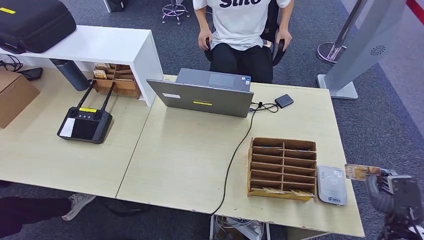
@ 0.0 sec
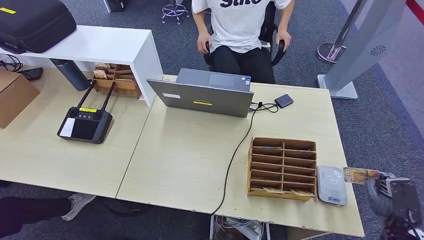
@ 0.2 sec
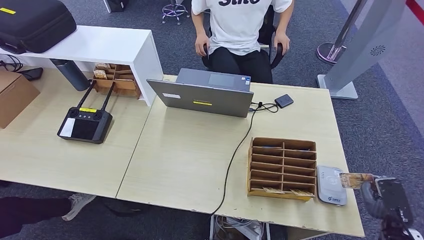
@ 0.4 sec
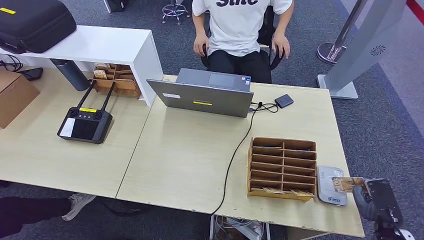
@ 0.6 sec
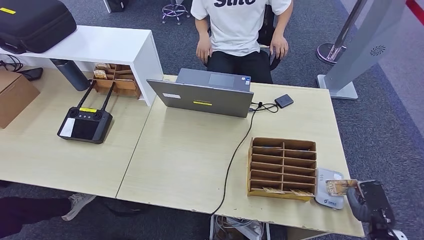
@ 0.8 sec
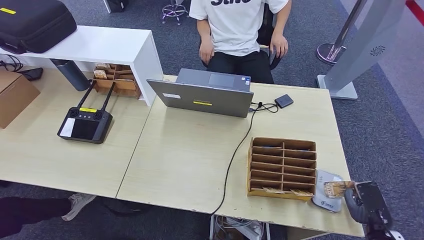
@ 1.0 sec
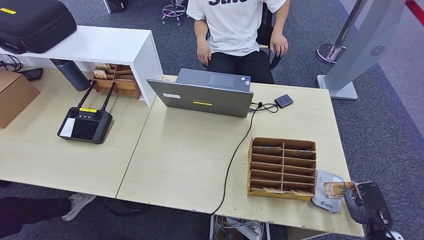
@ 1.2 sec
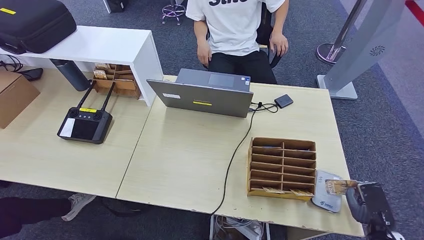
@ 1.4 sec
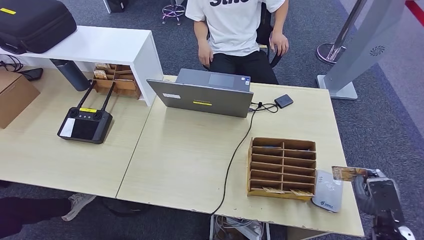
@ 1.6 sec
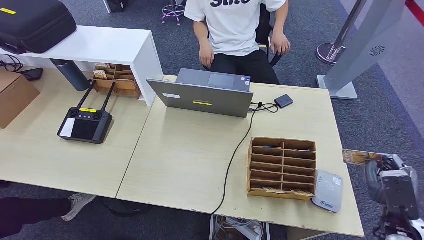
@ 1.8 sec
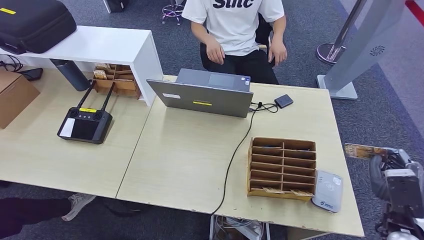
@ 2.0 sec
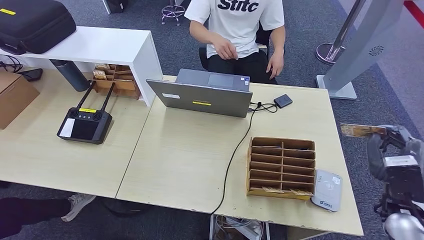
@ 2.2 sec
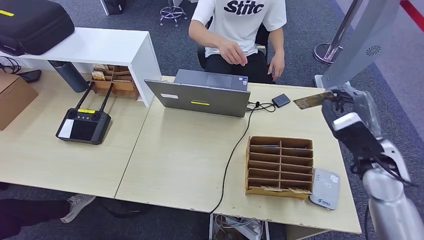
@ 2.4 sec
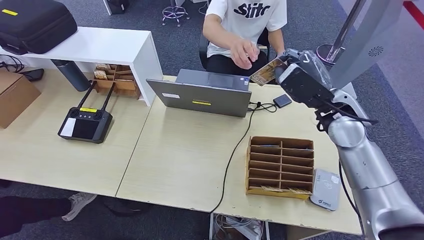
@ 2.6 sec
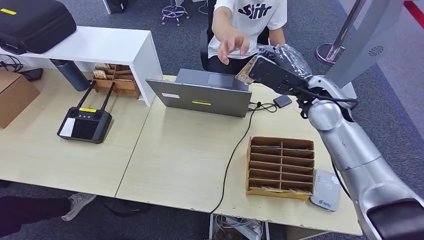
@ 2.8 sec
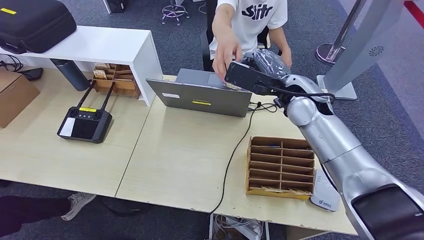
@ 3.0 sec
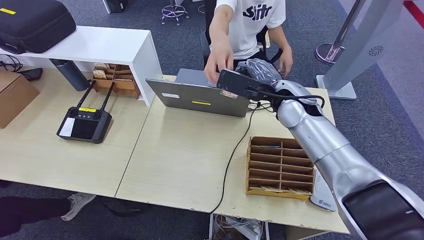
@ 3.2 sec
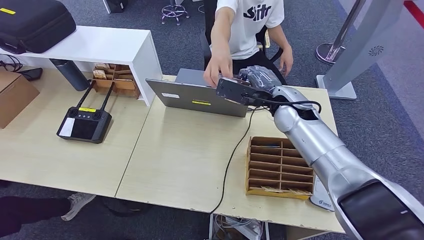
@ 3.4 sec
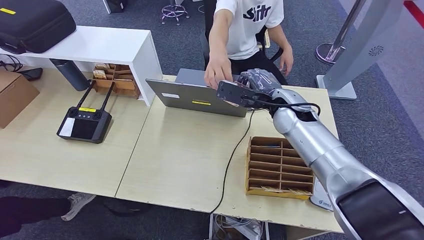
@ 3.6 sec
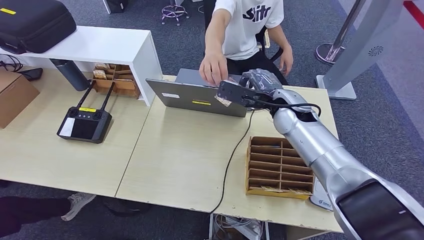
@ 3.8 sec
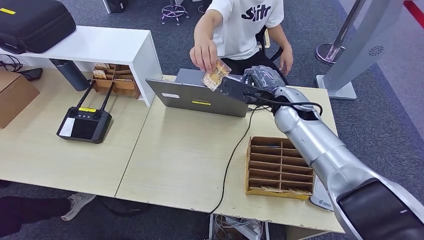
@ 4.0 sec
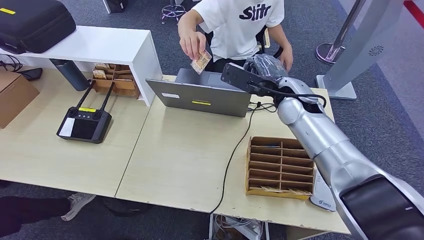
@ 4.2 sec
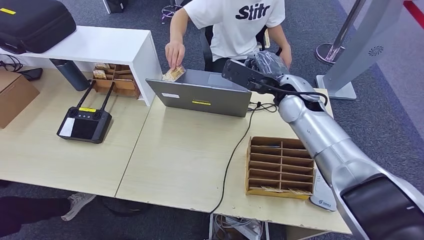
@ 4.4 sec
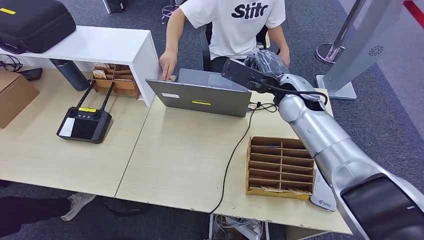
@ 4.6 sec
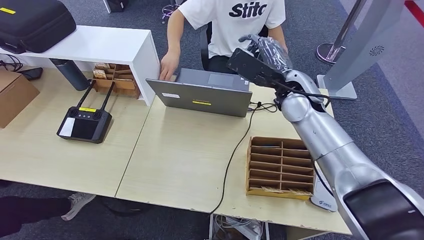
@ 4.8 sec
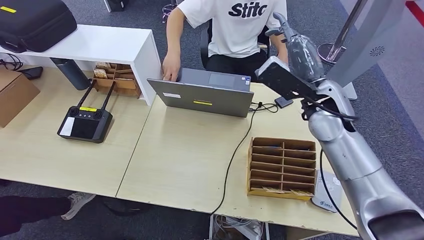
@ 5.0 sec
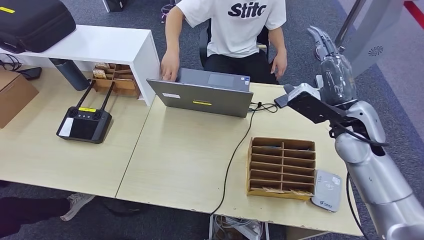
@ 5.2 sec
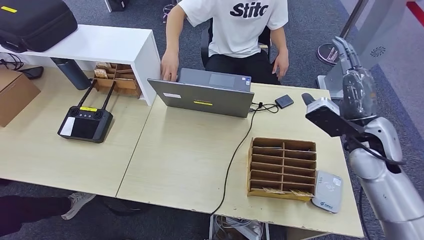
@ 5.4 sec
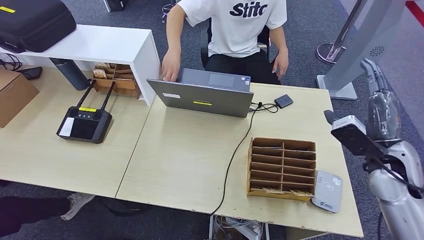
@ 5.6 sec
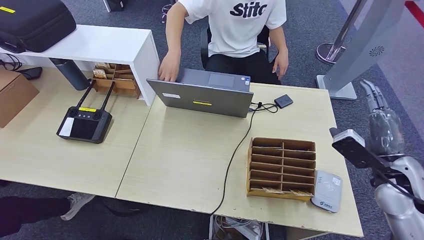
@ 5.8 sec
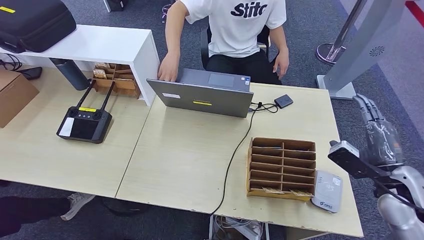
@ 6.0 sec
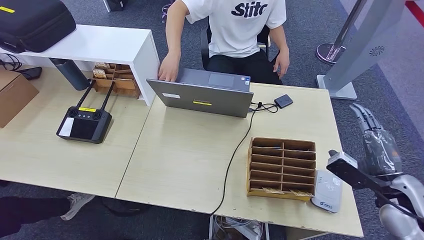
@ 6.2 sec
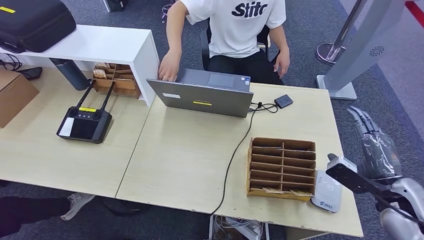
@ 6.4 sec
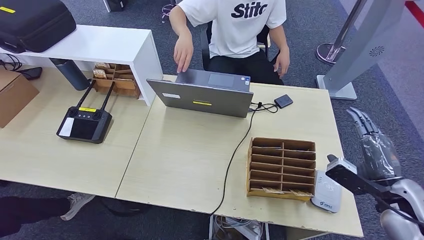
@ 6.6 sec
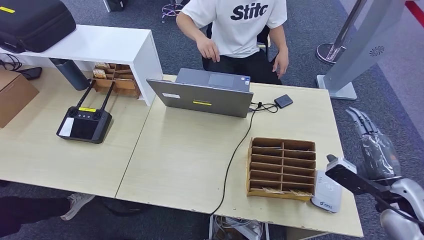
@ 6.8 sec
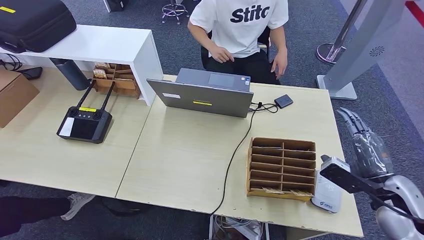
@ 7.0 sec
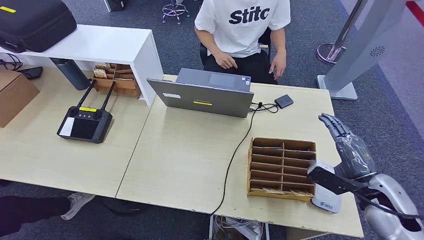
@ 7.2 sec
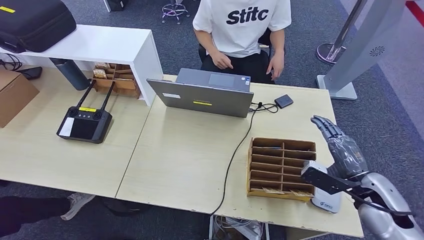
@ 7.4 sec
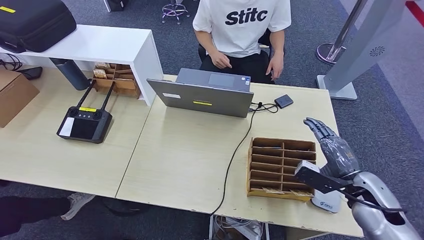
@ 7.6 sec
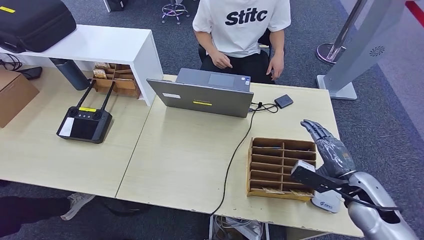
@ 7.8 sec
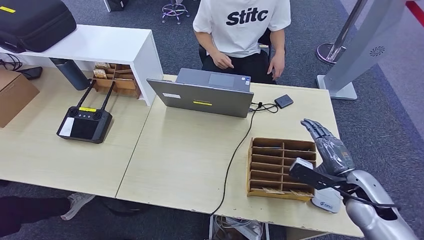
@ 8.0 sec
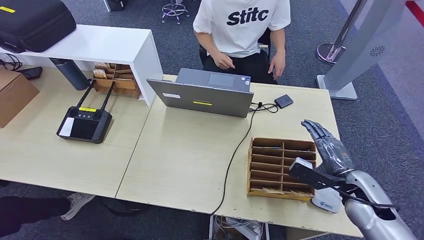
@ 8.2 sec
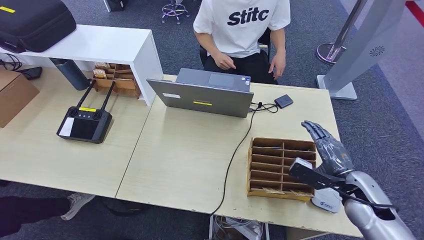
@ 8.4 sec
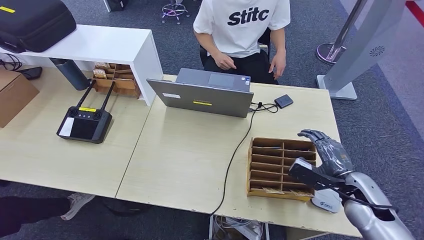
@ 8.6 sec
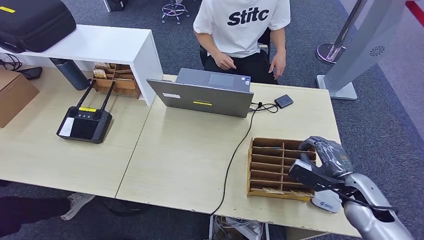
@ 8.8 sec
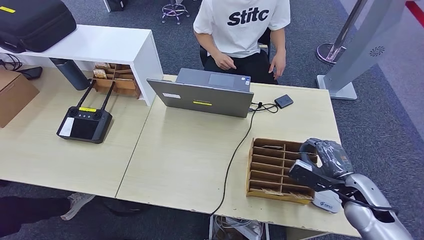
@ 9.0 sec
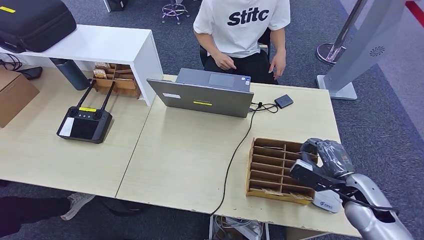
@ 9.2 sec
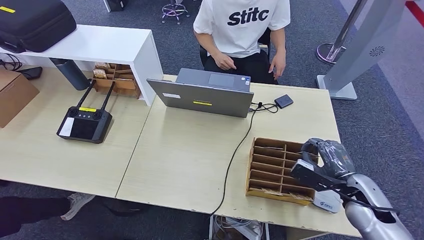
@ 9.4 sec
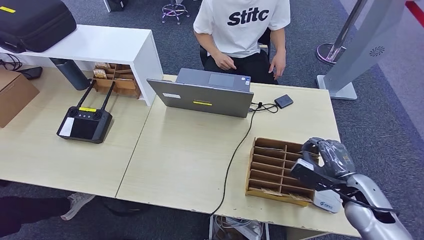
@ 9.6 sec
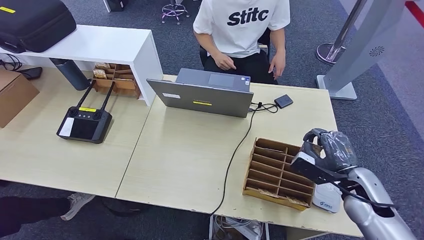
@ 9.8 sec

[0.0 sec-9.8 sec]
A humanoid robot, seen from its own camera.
Step, 1.2 sec to 4.6 sec: Hand the ID card to the person.
0.0 sec to 1.4 sec: There are only small adjustments of the hands.
1.4 sec to 2.8 sec: The right hand moves upward, forward and to the left, some 40 cm.
2.8 sec to 4.2 sec: The right hand moves roughly 5 cm.
5.6 sec to 7.0 sec: The right hand is displaced backward and downward by about 10 cm.
7.0 sec to 8.4 sec: The right hand moves about 5 cm.
8.4 sec to 9.8 sec: The hands move only a little.

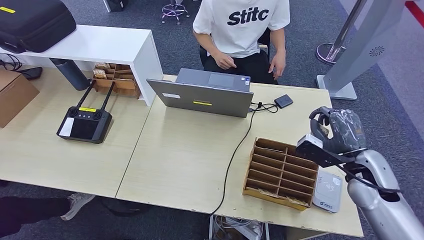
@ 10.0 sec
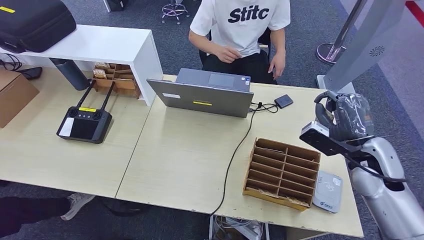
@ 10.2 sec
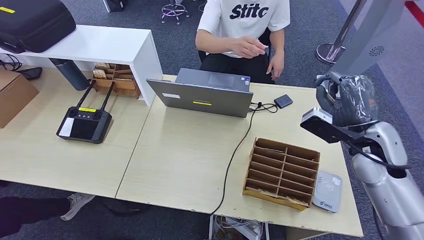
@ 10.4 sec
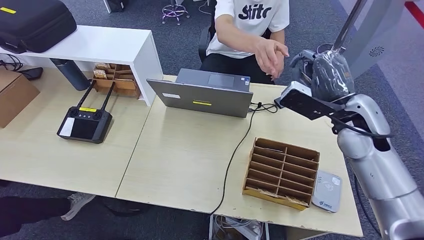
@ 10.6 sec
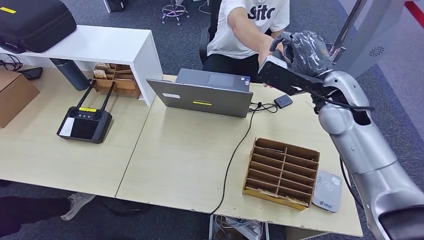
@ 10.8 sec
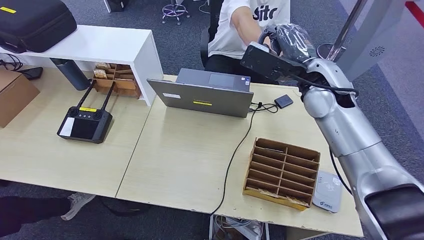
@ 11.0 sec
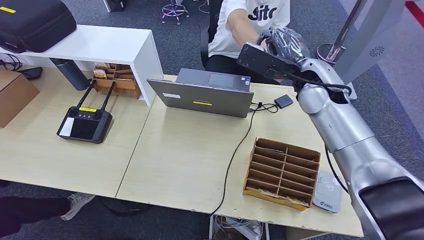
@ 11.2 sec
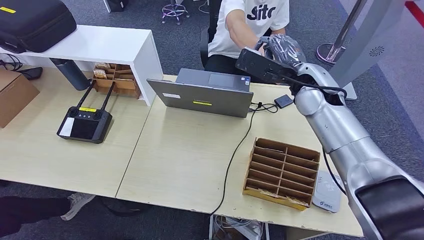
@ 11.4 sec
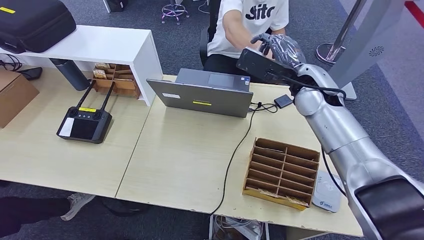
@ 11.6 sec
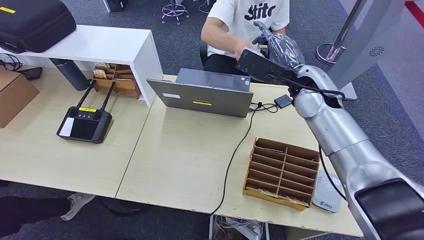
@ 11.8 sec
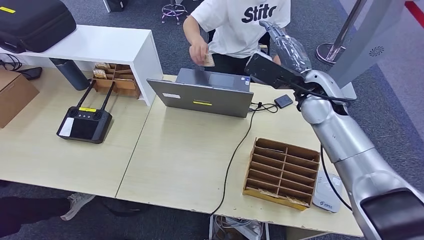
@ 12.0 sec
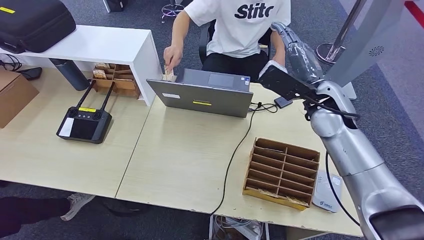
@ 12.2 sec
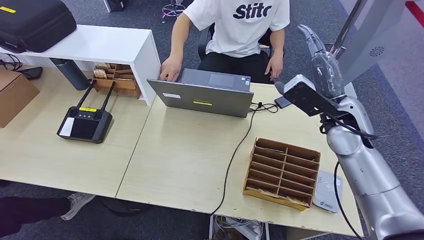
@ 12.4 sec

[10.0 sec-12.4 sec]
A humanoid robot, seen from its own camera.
Step, 10.8 sec to 12.4 sec: Hand the room key to the person.
10.0 sec to 11.2 sec: The right hand is displaced upward, to the left and forward by approximately 25 cm.
11.2 sec to 12.4 sec: The right hand shifts approximately 10 cm to the right, downward and backward.
